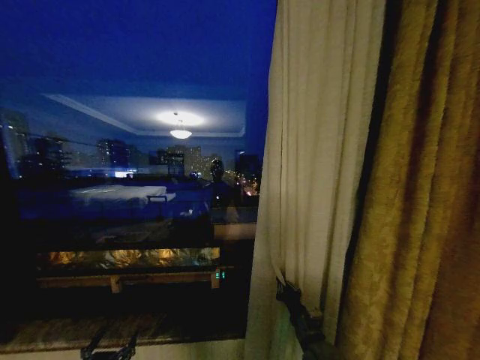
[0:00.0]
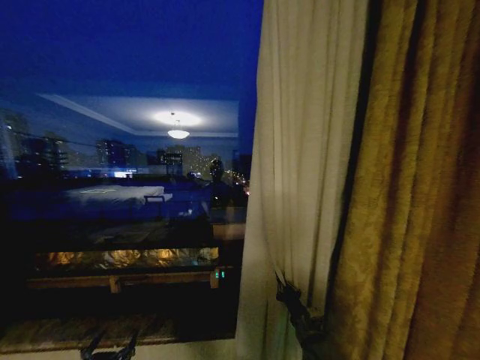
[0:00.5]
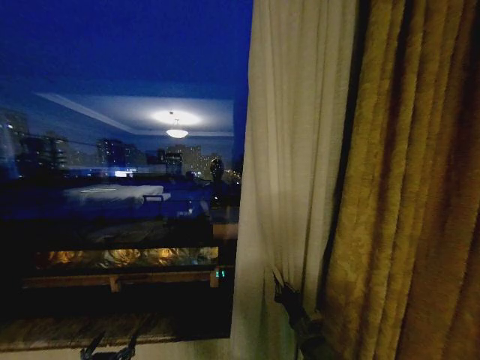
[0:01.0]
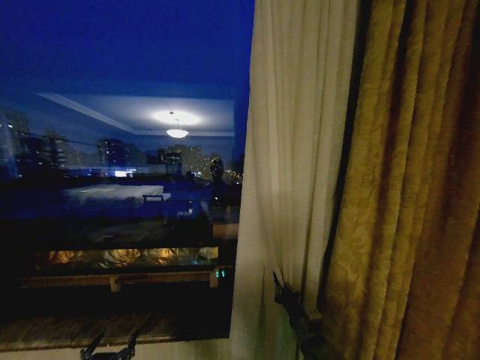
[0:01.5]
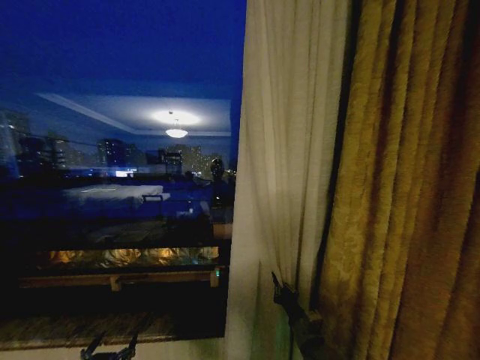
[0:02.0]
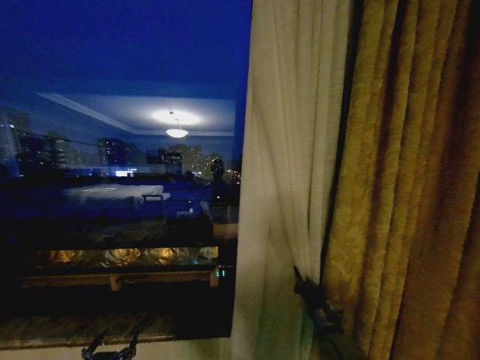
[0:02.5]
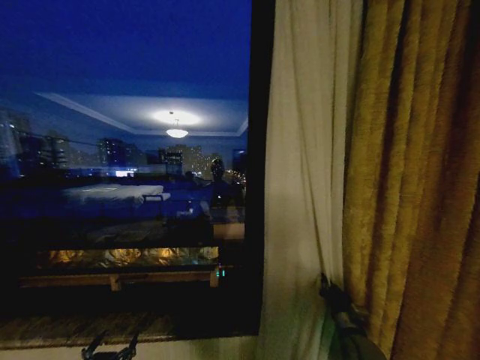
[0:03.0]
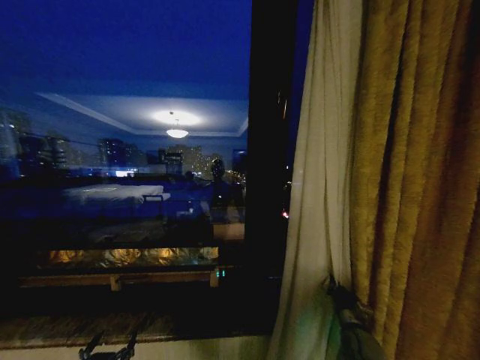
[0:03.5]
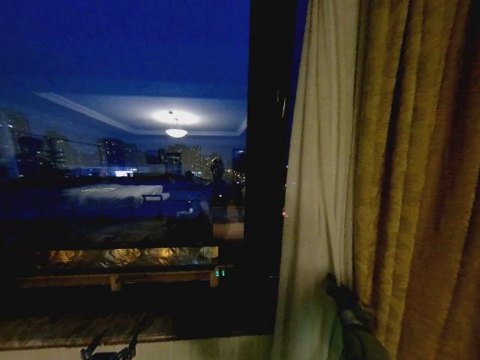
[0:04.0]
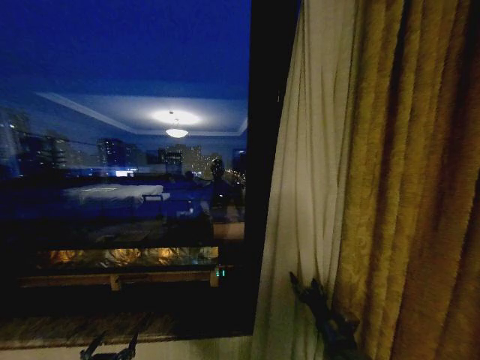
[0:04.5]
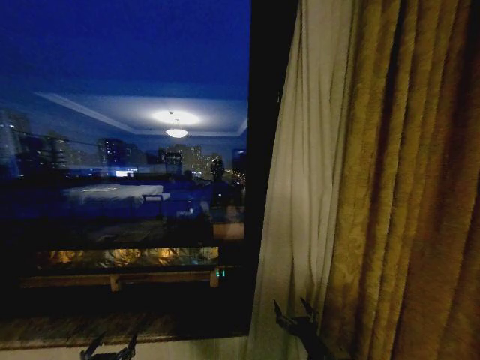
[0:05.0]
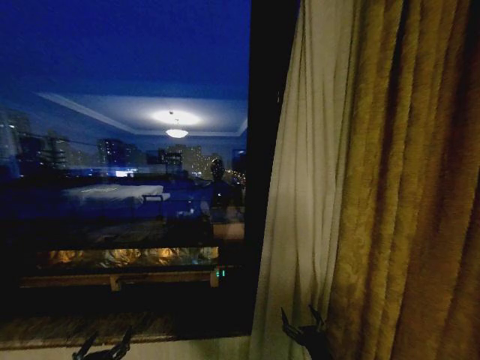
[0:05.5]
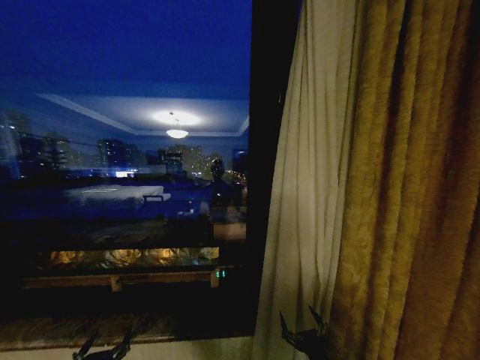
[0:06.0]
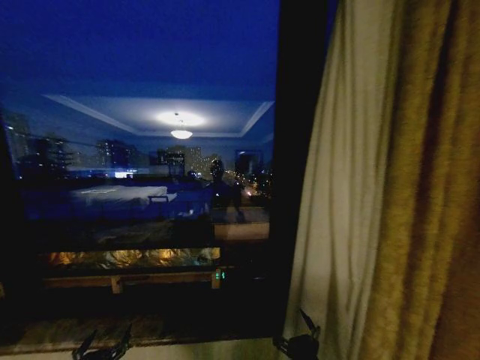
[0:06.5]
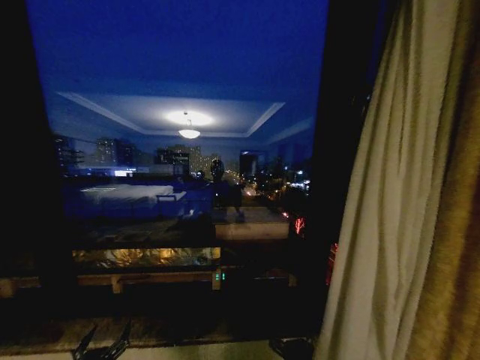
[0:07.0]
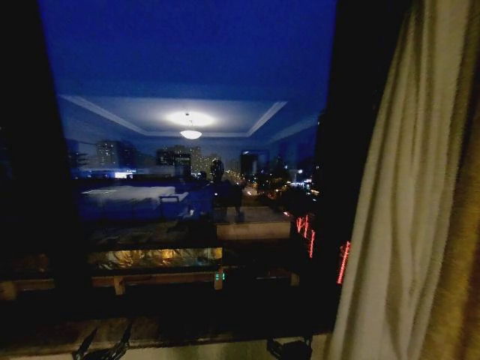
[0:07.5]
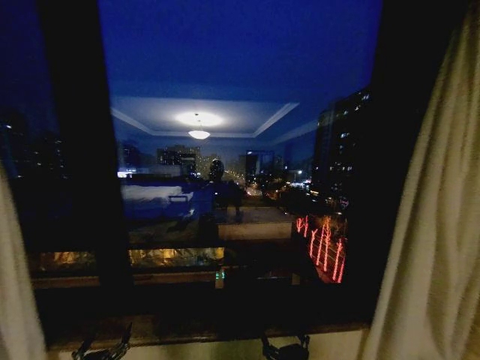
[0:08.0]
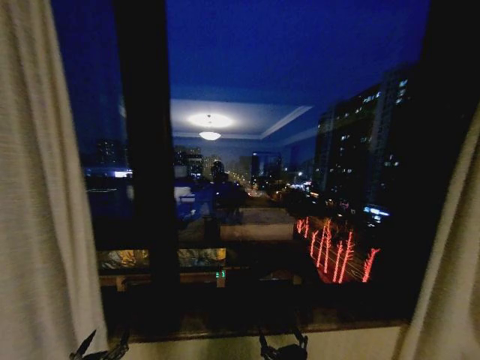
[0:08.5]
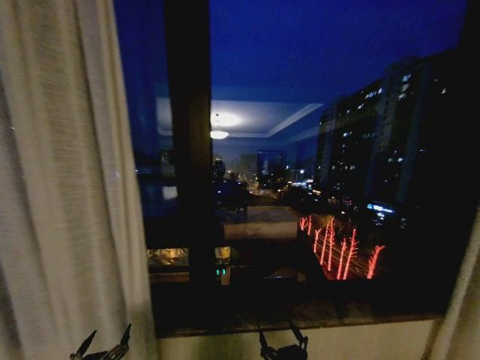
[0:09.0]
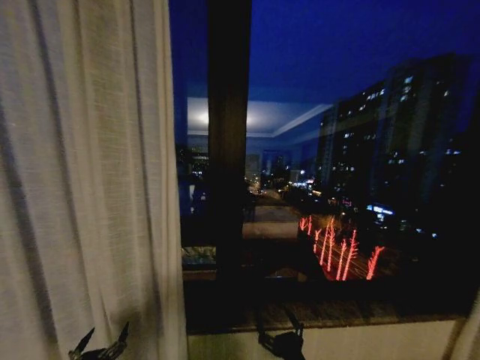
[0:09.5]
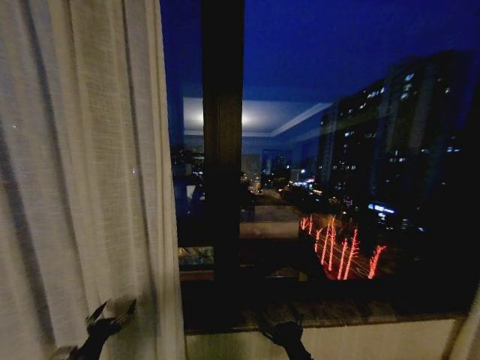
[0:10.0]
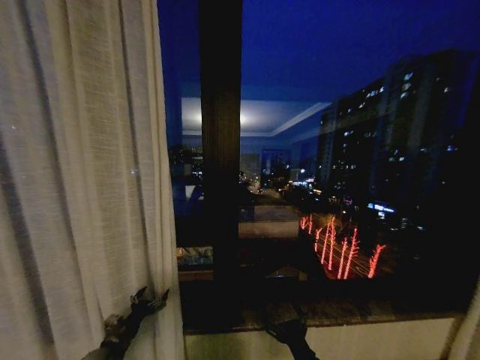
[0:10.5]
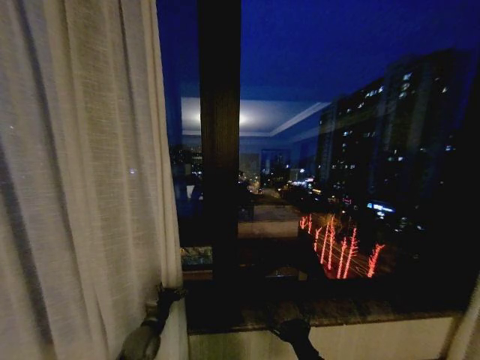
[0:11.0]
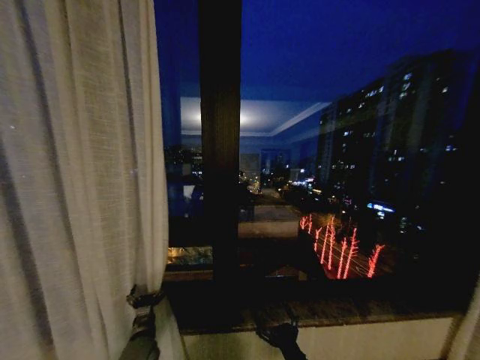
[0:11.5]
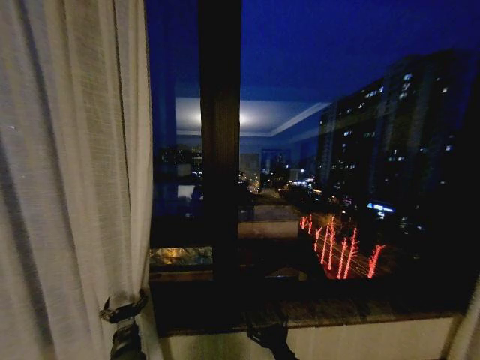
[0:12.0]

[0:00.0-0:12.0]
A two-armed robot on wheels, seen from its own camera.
Task of the whole recording: Open the curtains by pulling them apart, changing their state from closed to fully open.
0:02.0 to 0:04.0: The right gripper travels to the right by approximately 15 cm.
0:04.0 to 0:06.0: The right gripper goes approximately 20 cm backward and to the left, and opens up.
0:06.0 to 0:08.0: The right gripper ends up some 5 cm from where it was.
0:08.0 to 0:10.0: The left gripper travels forward by roughly 10 cm.
0:10.0 to 0:12.0: The left gripper heads to the right and forward, covering roughly 15 cm.

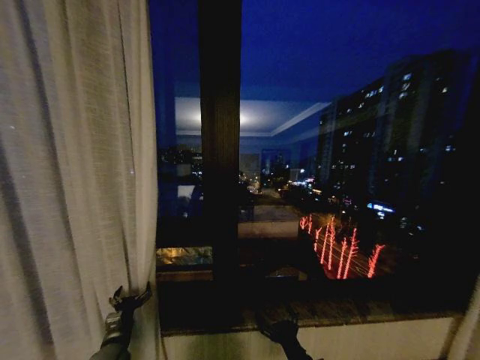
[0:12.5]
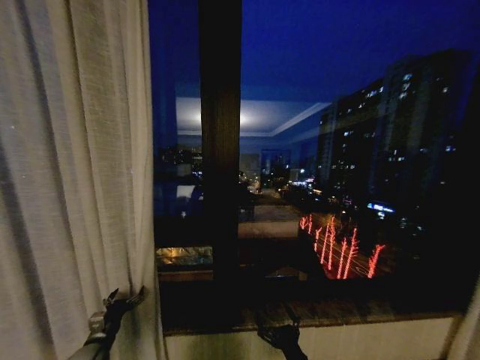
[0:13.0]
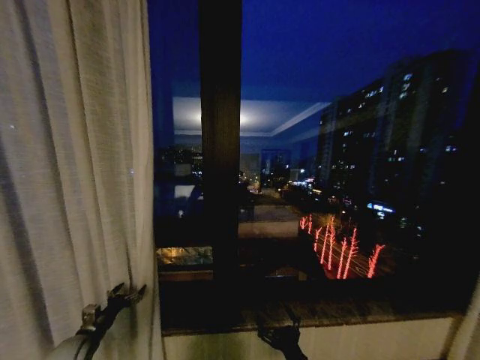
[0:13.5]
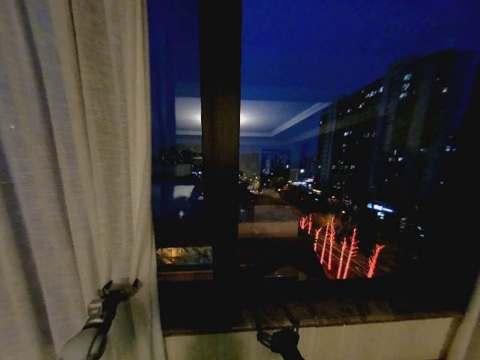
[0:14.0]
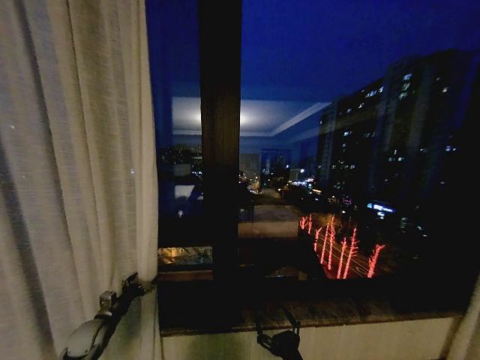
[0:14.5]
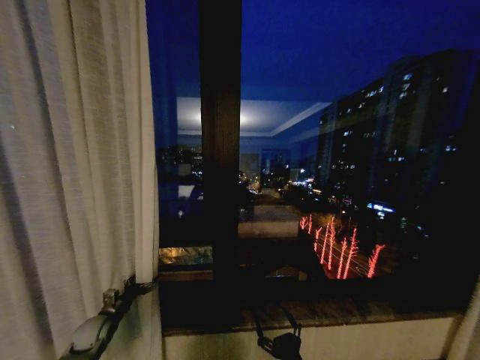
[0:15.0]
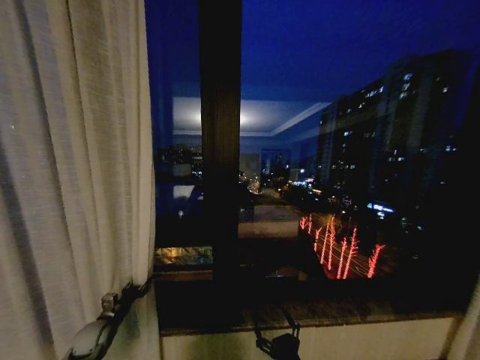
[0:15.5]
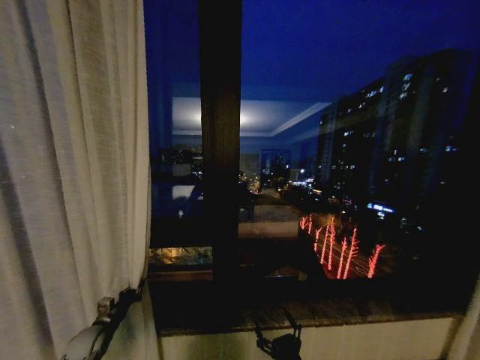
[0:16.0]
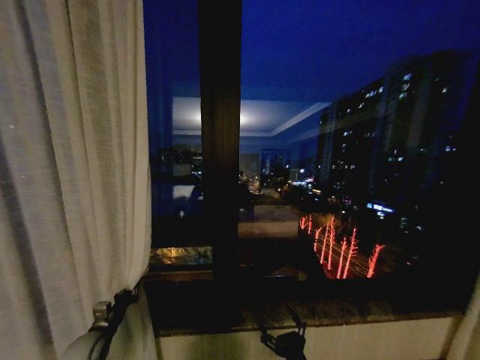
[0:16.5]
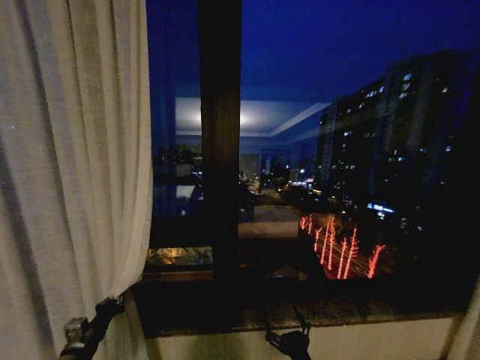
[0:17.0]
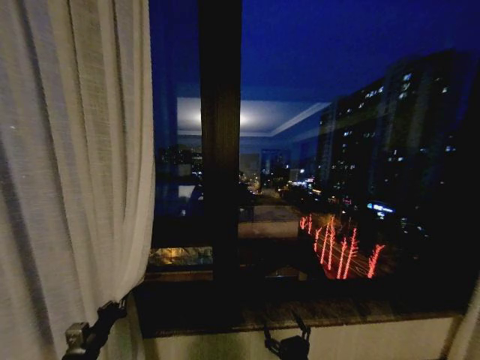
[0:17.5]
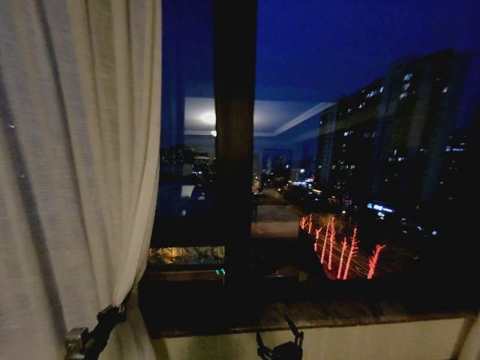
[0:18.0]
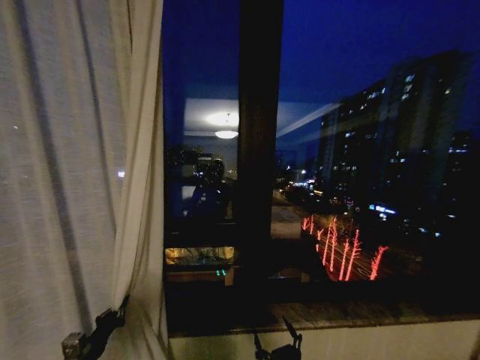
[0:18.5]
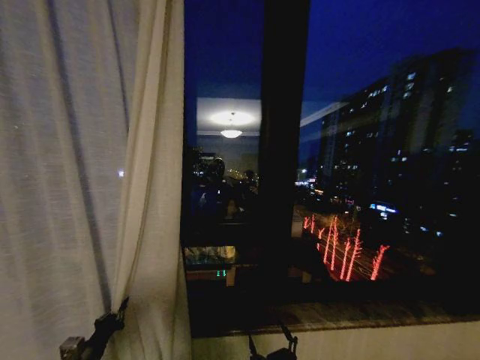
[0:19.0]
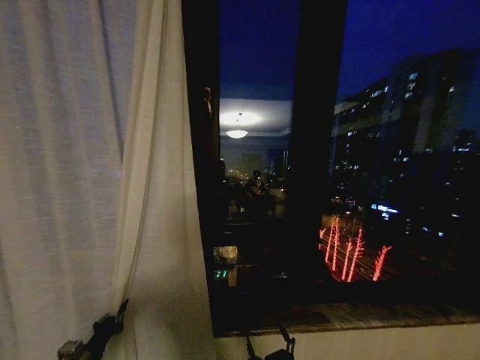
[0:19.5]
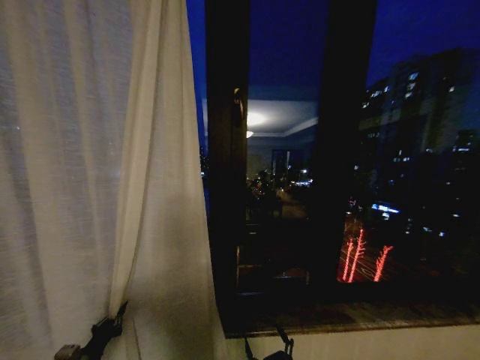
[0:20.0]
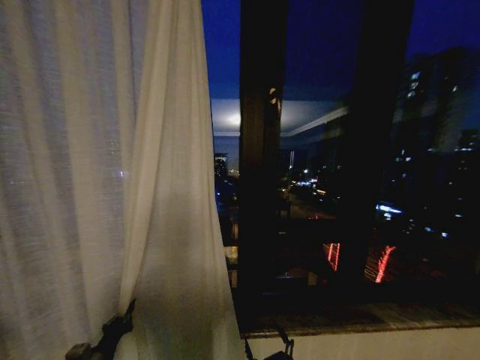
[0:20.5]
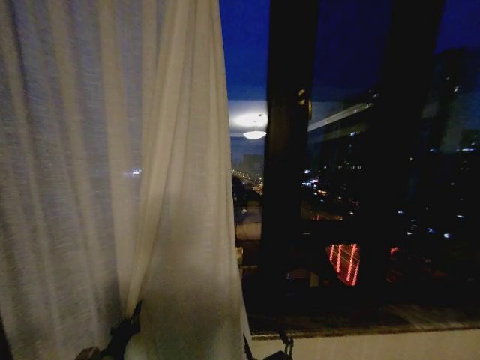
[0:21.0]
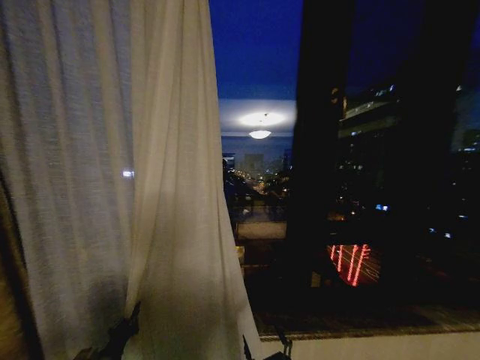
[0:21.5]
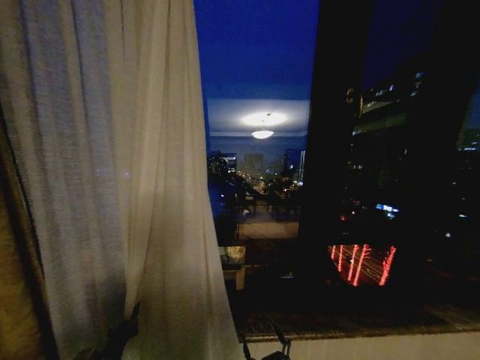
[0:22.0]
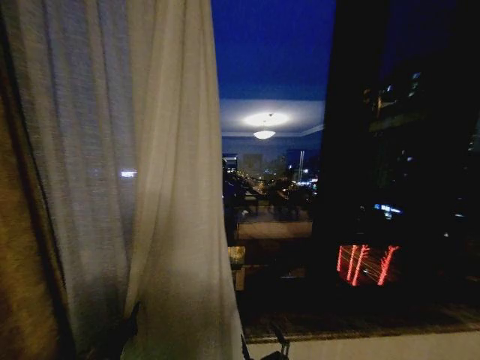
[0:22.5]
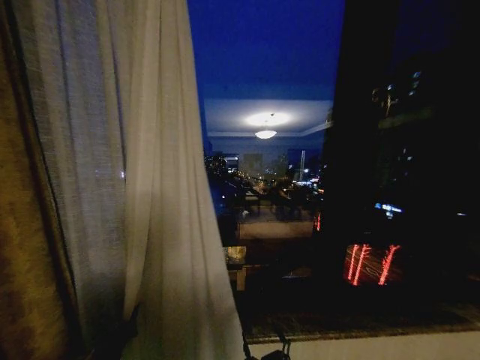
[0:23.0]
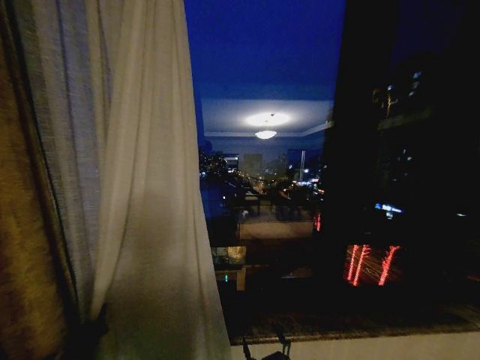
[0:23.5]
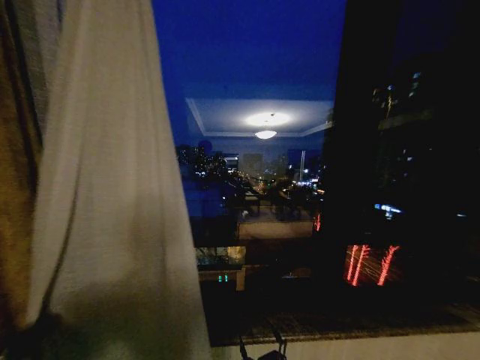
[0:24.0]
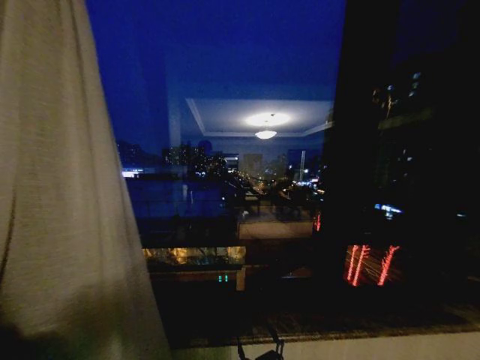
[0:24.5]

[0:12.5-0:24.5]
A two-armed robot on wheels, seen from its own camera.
Task of the whole recording: Open the curtains by pulling them apart, changing their state from closed to fully open.
0:12.5 to 0:14.5: The left gripper moves to the left and forward, approximately 10 cm.
0:14.5 to 0:16.5: The left gripper closes its fingers.
0:16.5 to 0:18.5: The left gripper travels backward by roughly 10 cm.
0:22.5 to 0:24.5: The left gripper travels to the left by some 20 cm.

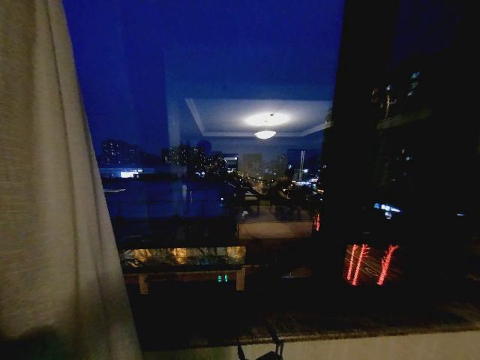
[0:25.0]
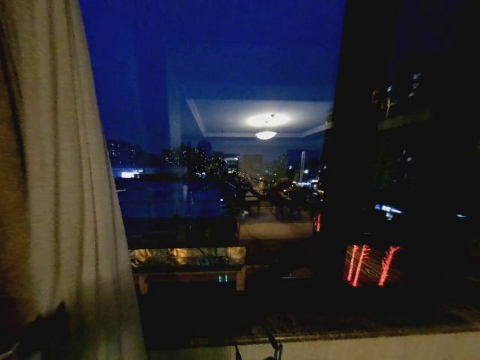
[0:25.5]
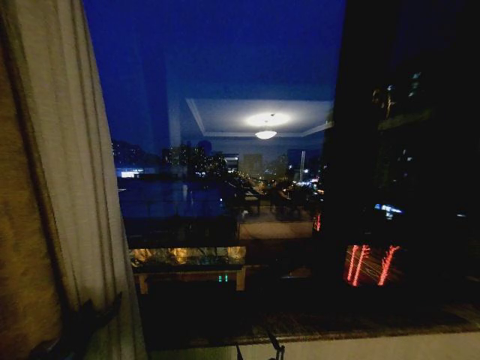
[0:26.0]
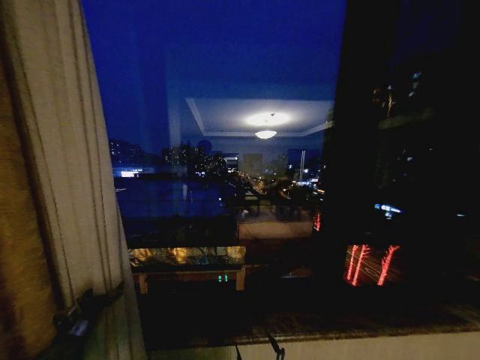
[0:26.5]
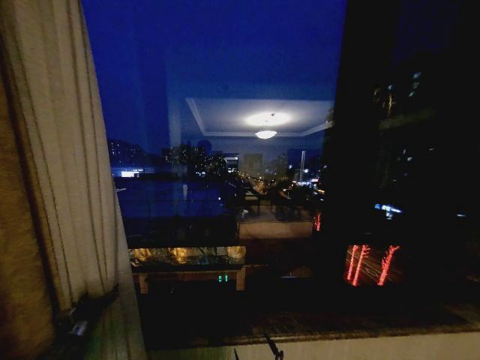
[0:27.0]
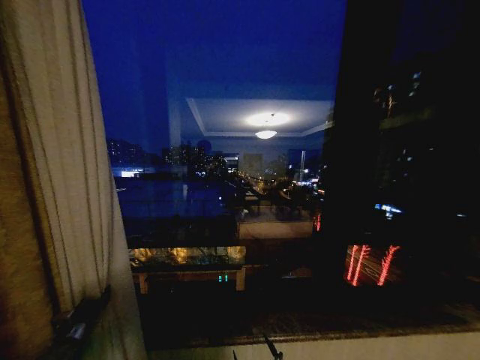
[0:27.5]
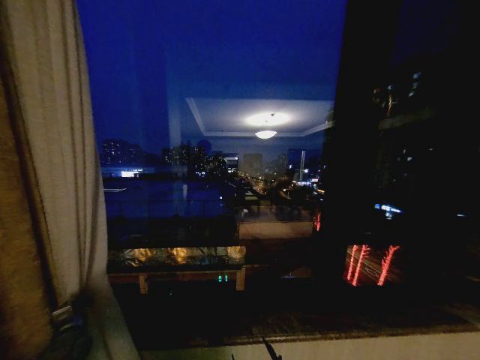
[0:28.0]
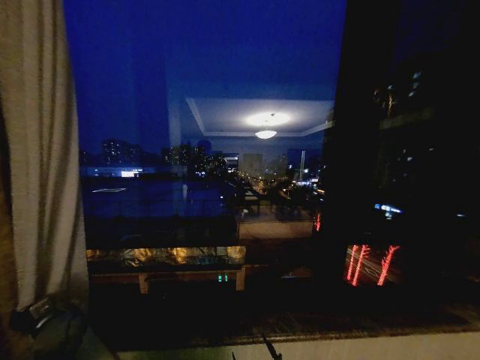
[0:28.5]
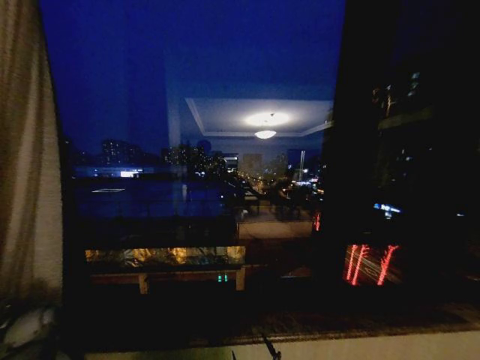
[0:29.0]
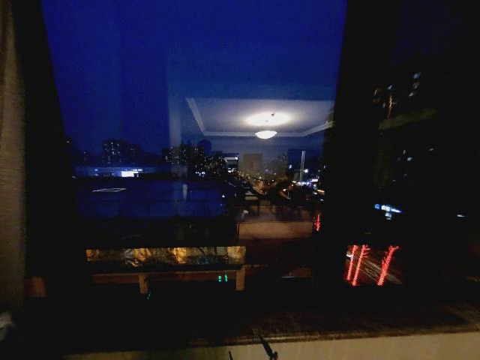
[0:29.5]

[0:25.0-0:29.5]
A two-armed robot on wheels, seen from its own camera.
Task of the whole recording: Open the curtains by pulling them apart, changing their state from closed to fully open.
0:25.0 to 0:27.0: The left gripper is displaced to the right by approximately 10 cm, and opens.
0:27.0 to 0:29.5: The left gripper shifts about 20 cm to the left and upward, and closes its fingers.
